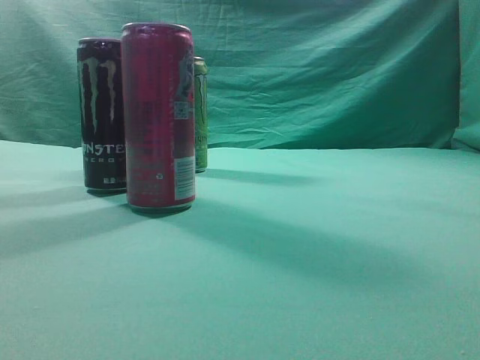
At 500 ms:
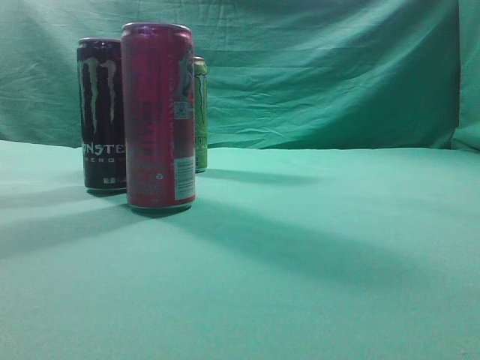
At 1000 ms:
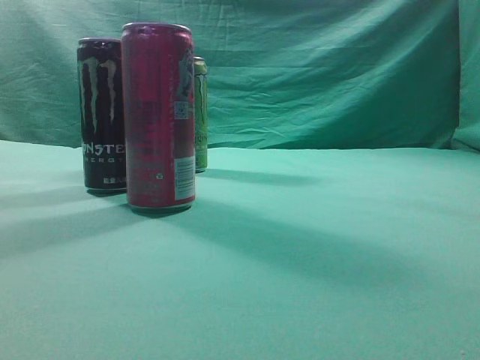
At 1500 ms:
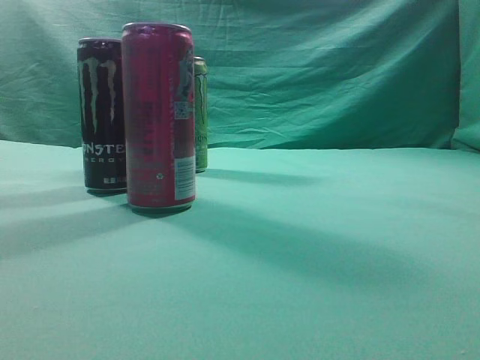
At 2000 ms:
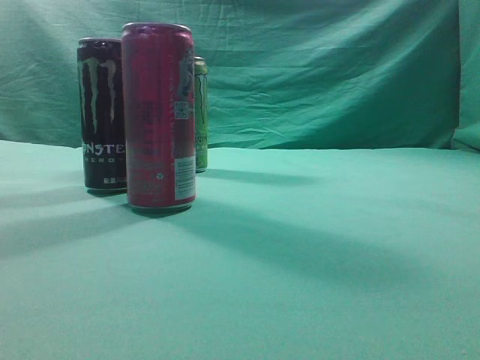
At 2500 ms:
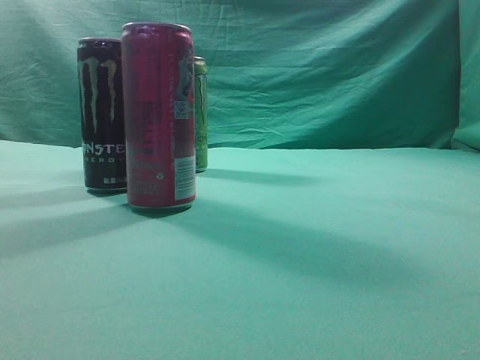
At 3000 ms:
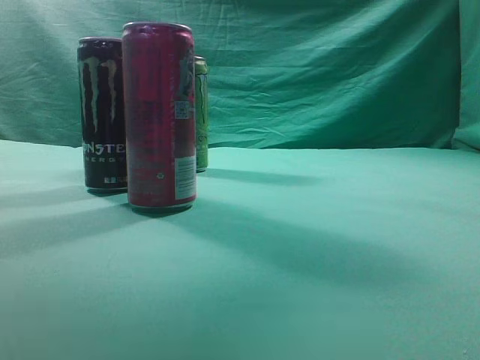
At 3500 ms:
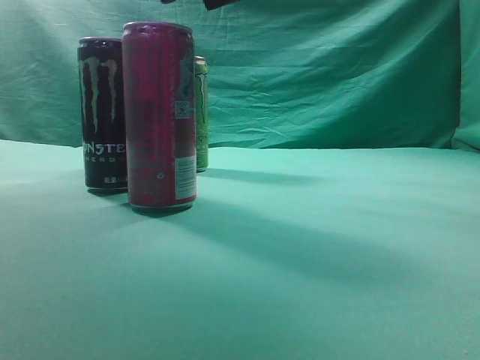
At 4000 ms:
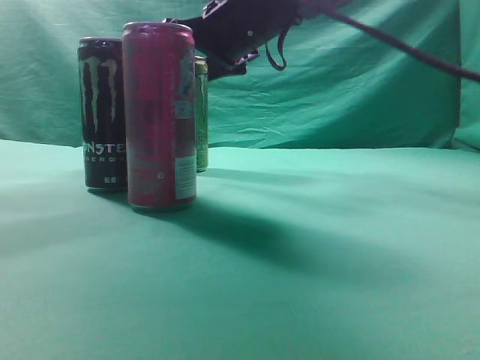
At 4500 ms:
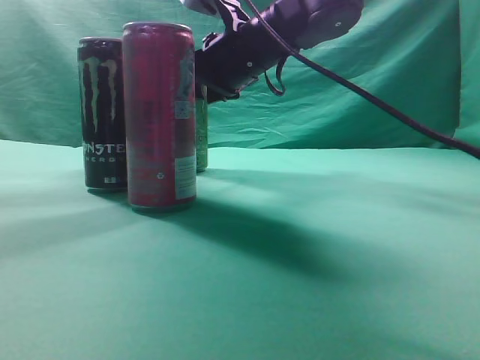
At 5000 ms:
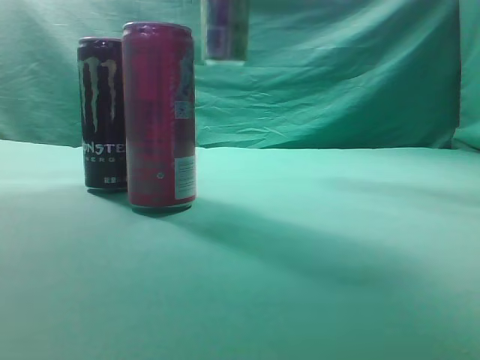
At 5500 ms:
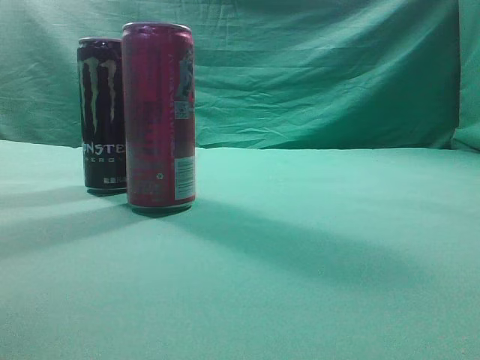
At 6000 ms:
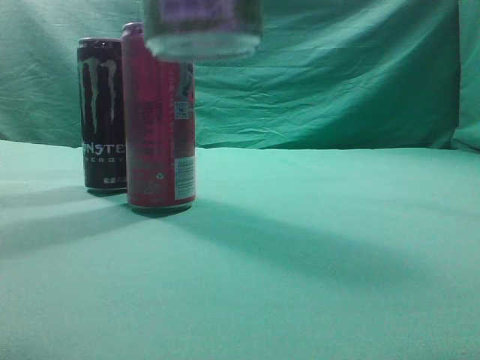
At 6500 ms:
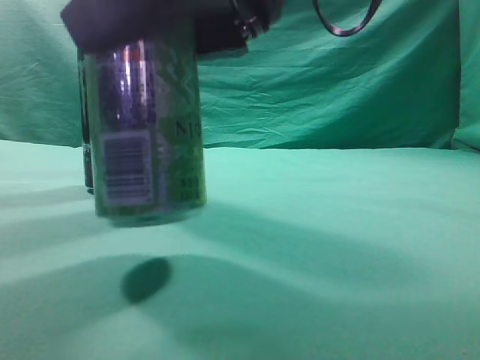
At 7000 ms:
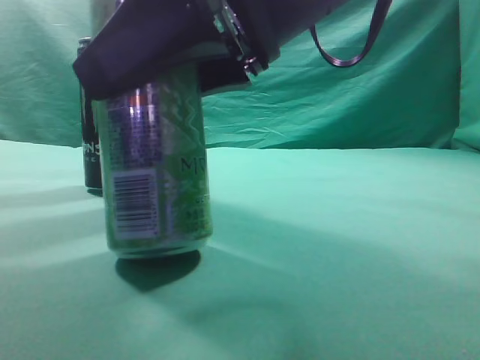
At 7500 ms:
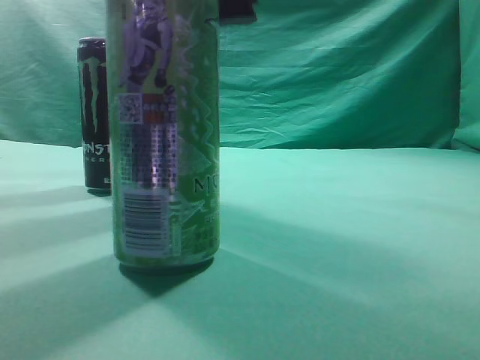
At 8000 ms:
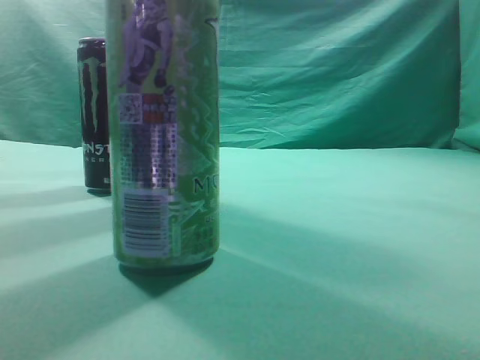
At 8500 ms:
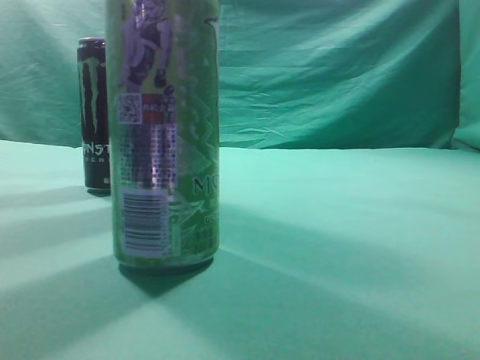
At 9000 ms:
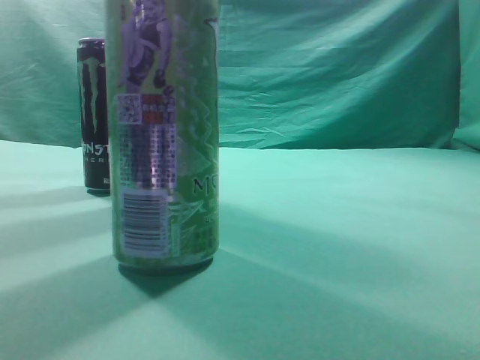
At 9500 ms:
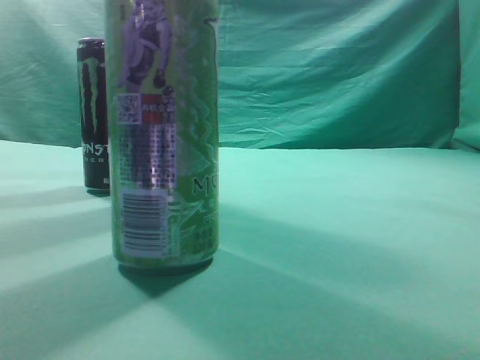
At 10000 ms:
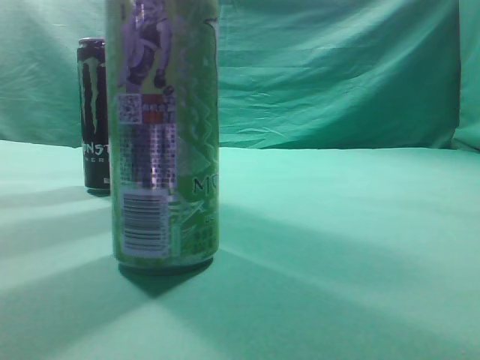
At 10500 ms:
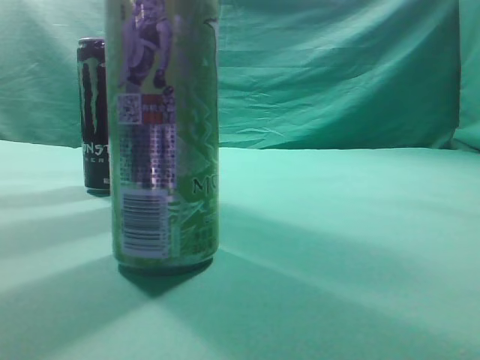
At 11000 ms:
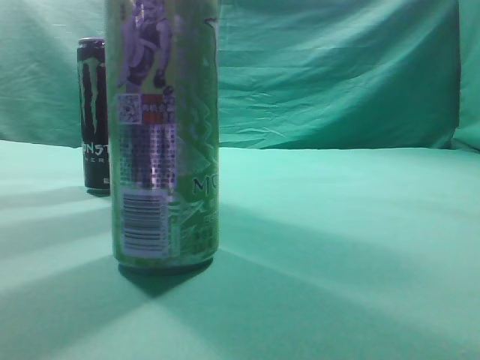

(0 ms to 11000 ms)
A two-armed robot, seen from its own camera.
Task of the whole recording: move one drink among three beverages.
Step, 0 ms - 4500 ms: Grasp the beverage bottle placed at the back of the desk.
Step, 5000 ms - 7500 ms: Place the beverage bottle to the front of the table.
2000 ms - 3500 ms: The right gripper is displaced forward and to the left by about 40 cm, and opens up.
3500 ms - 5500 ms: The right gripper travels backward, upward and to the right by about 20 cm.
5500 ms - 7500 ms: The right gripper shifts some 20 cm downward and to the left.
7500 ms - 9000 ms: The right gripper travels to the right, backward and upward by some 30 cm, and closes its fingers.

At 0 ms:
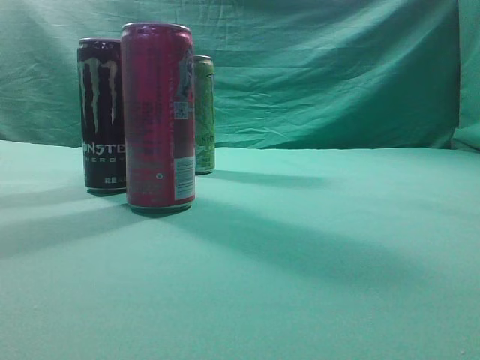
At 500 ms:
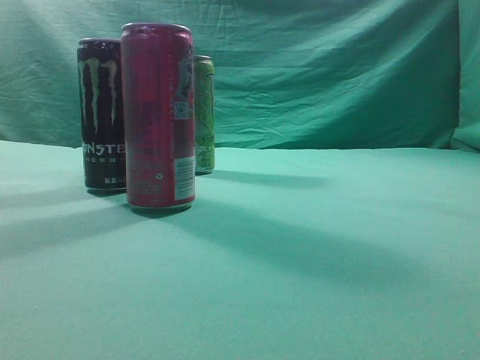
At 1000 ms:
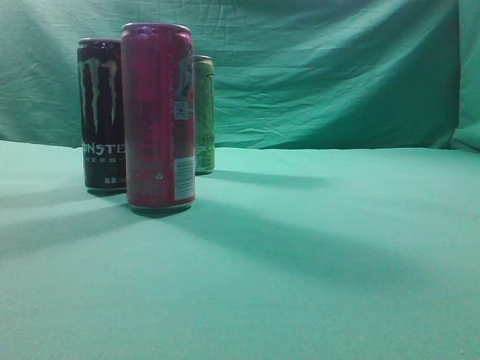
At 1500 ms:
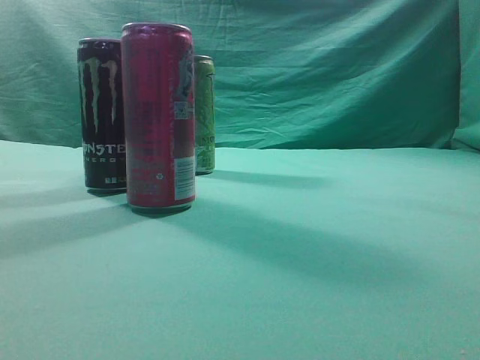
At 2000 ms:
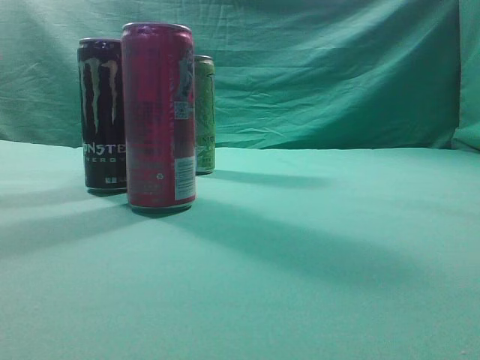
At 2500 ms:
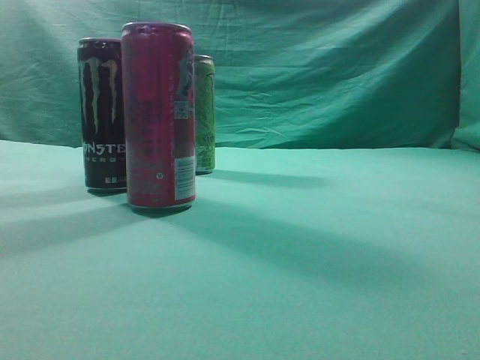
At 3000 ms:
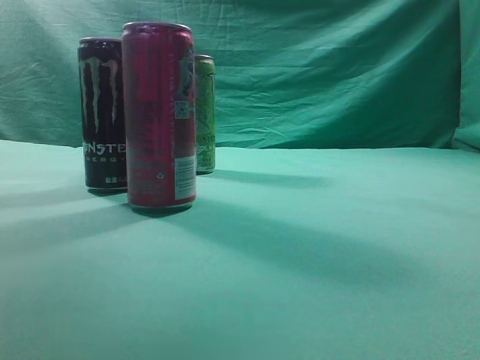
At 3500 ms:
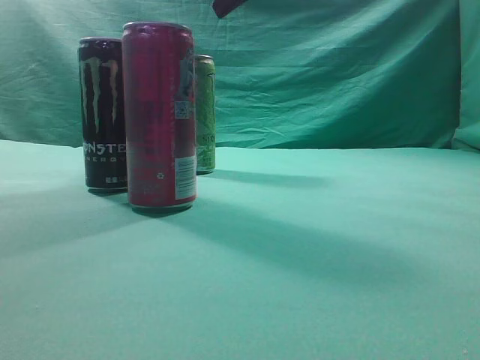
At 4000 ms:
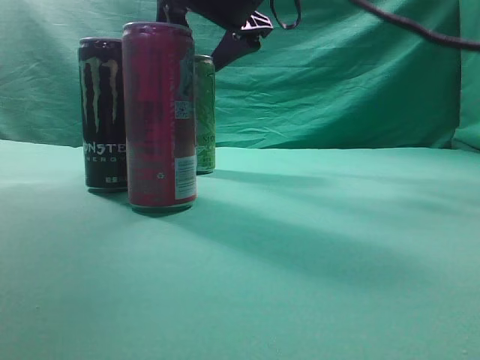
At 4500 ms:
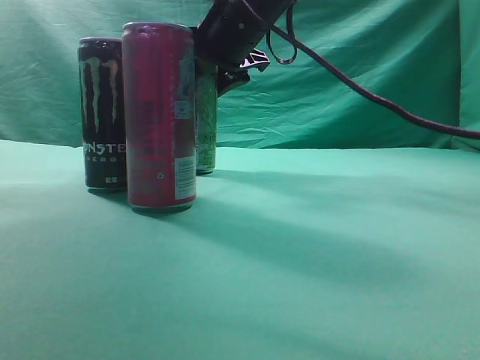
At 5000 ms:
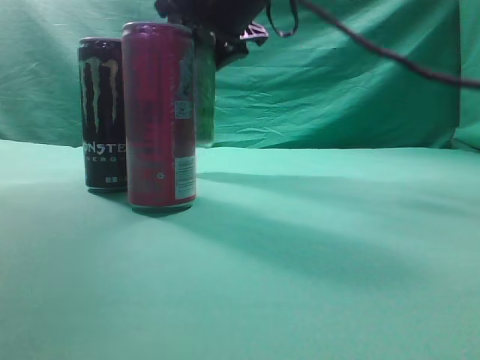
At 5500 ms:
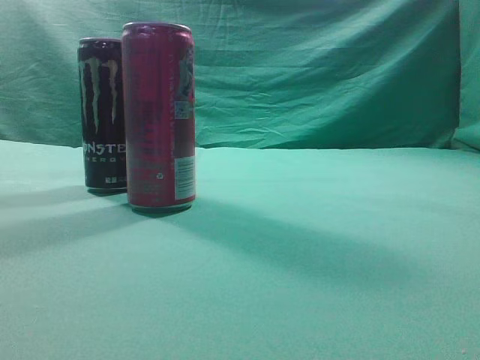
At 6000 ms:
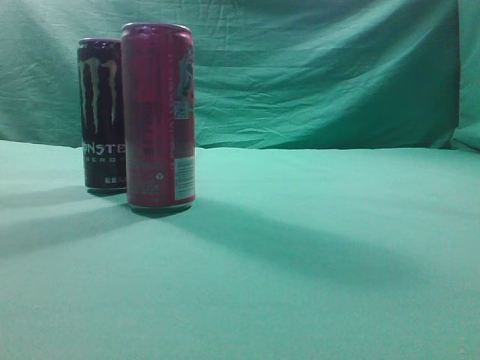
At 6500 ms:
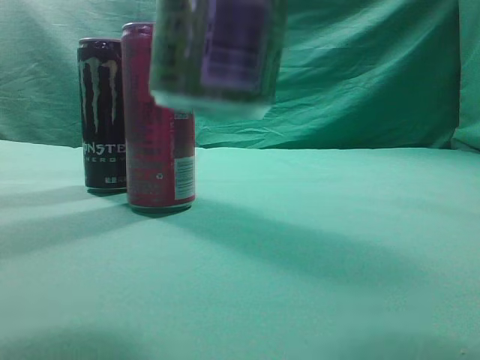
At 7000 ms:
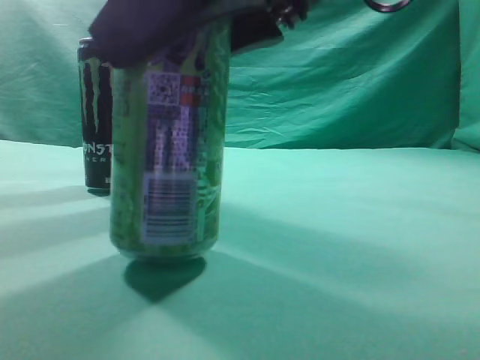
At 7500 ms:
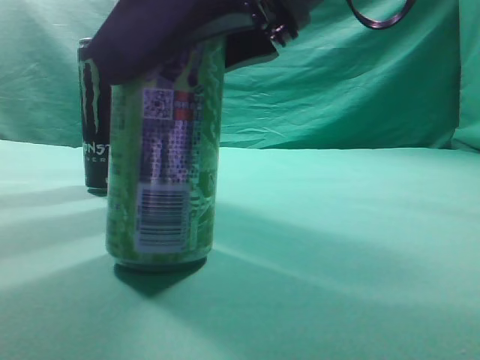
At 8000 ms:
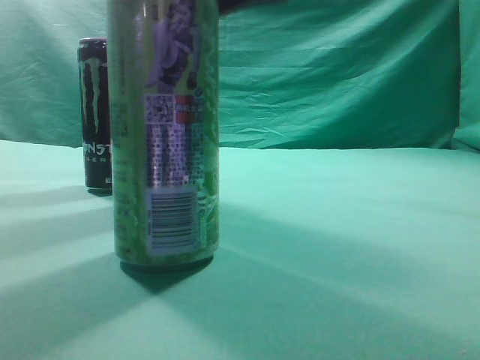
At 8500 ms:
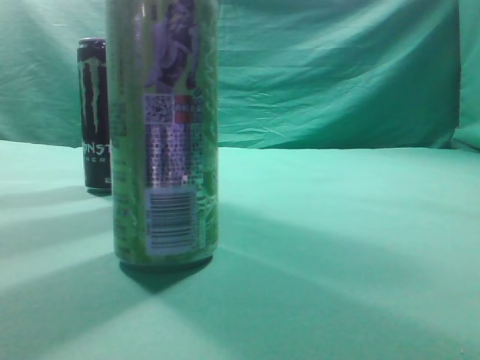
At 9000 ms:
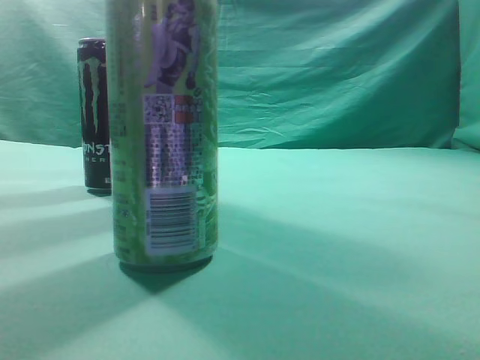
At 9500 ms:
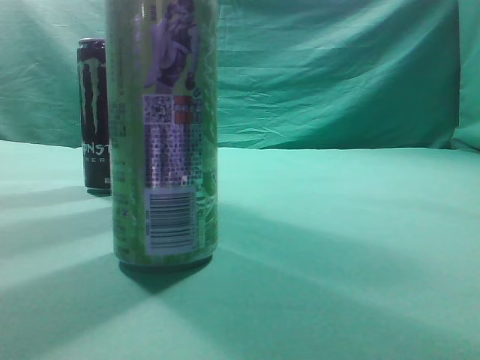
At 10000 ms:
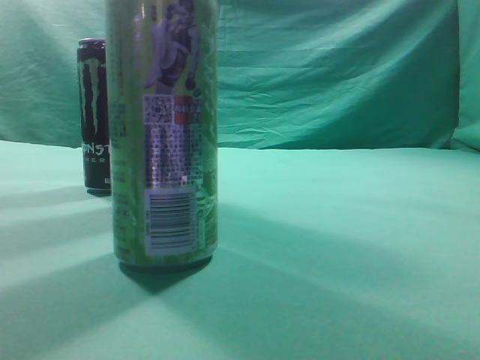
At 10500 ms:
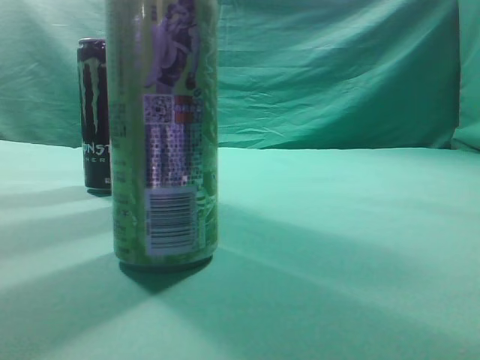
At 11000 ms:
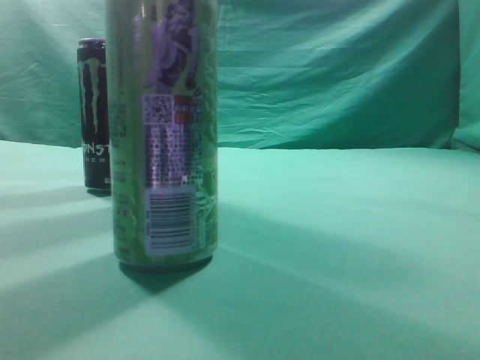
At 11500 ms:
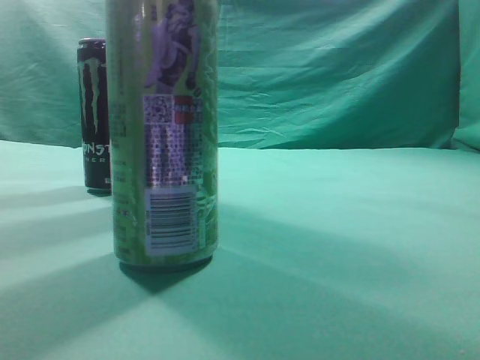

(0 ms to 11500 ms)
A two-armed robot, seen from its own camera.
Task of the whole recording: move one drink among three beverages.
Step, 0 ms - 5000 ms: Grasp the beverage bottle placed at the back of the desk.
Step, 5500 ms - 8000 ms: Place the beverage bottle to the front of the table.
2000 ms - 4000 ms: The right gripper travels forward and to the left by approximately 50 cm, and opens up.
4000 ms - 6000 ms: The right gripper heads backward, upward and to the right, covering approximately 30 cm.
6000 ms - 7500 ms: The right gripper is displaced downward by some 20 cm.
7500 ms - 9500 ms: The right gripper goes roughly 30 cm to the right, backward and upward, and closes up.
